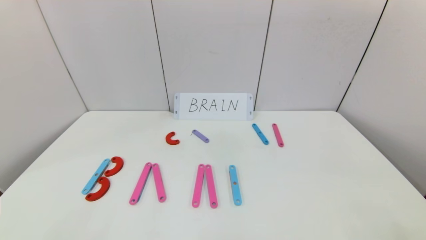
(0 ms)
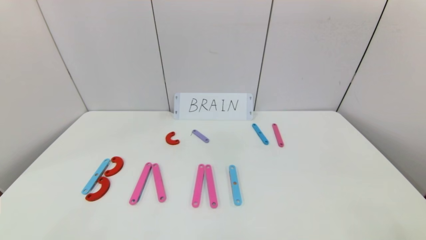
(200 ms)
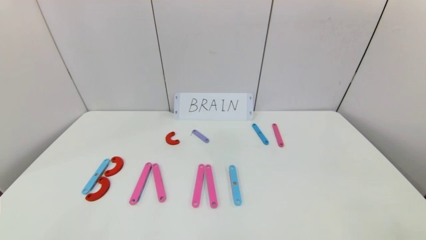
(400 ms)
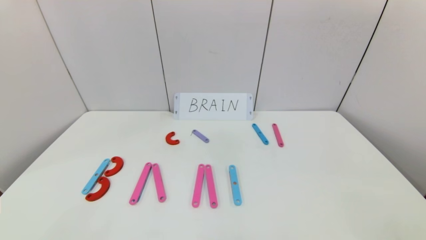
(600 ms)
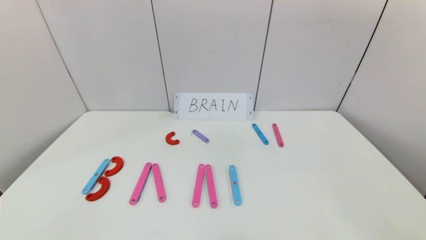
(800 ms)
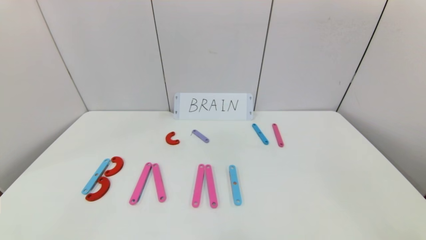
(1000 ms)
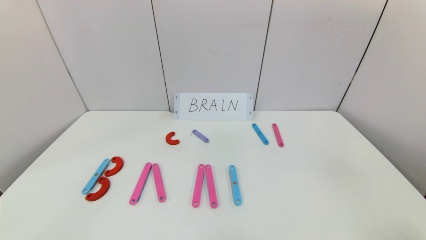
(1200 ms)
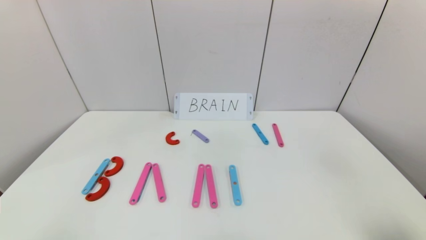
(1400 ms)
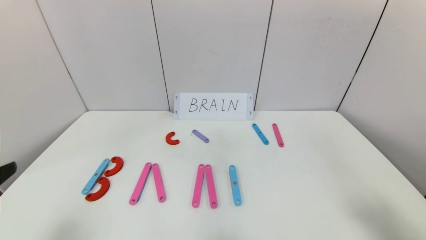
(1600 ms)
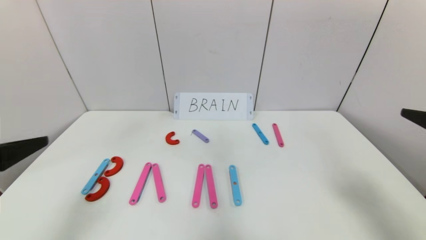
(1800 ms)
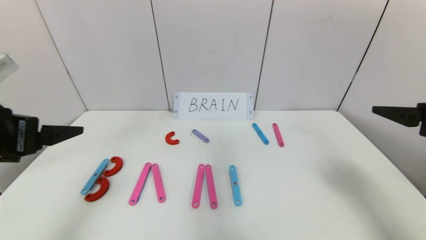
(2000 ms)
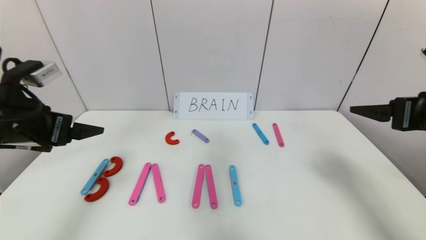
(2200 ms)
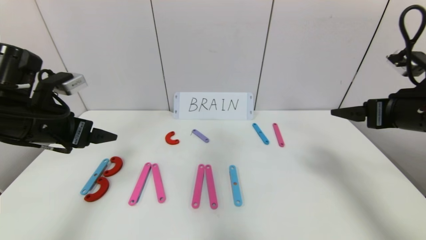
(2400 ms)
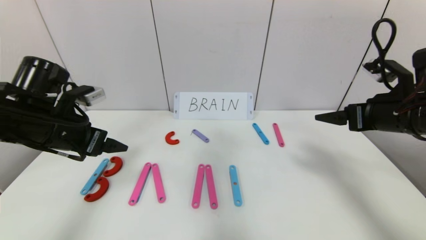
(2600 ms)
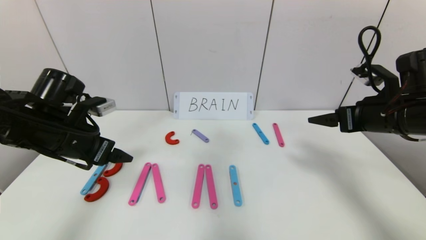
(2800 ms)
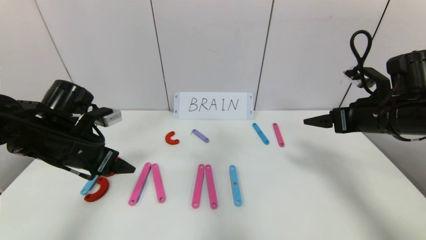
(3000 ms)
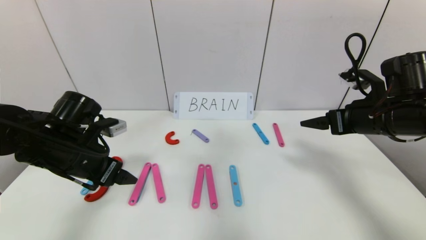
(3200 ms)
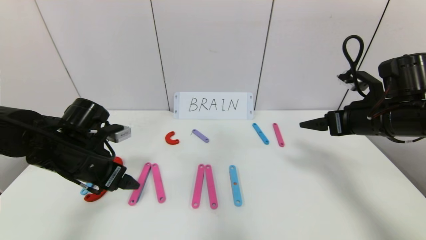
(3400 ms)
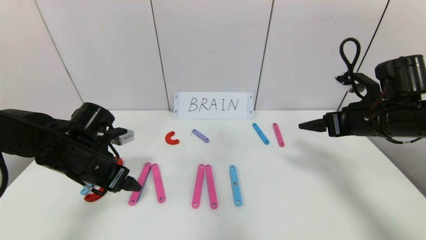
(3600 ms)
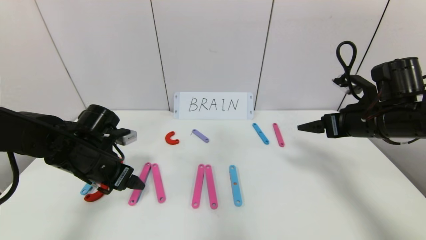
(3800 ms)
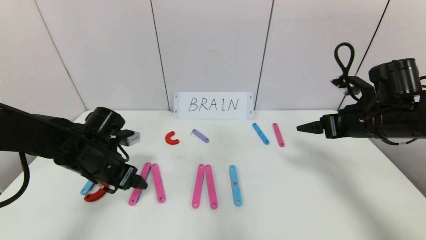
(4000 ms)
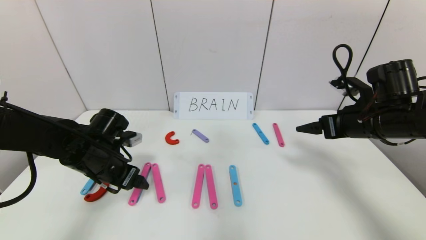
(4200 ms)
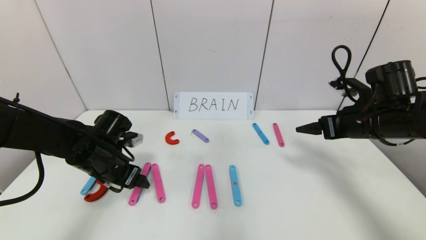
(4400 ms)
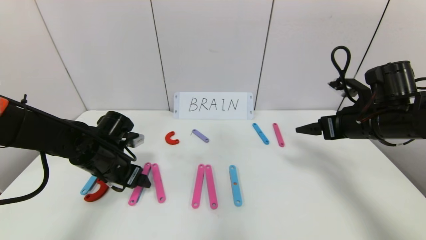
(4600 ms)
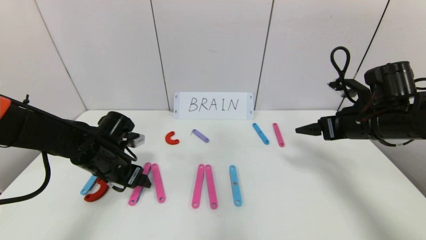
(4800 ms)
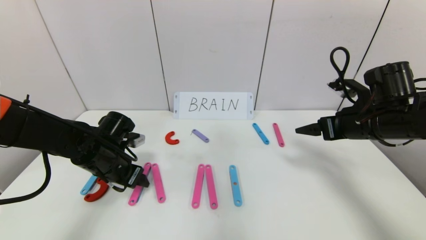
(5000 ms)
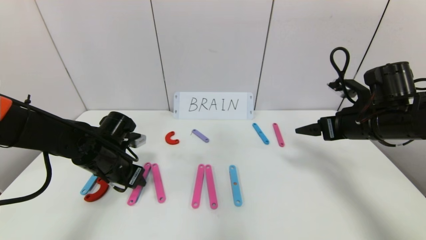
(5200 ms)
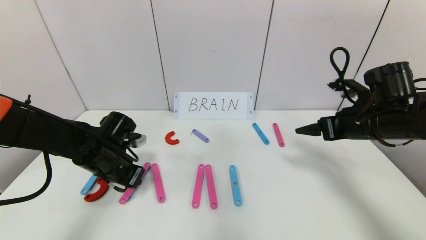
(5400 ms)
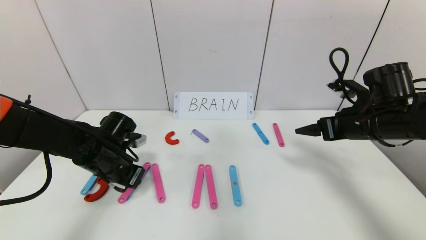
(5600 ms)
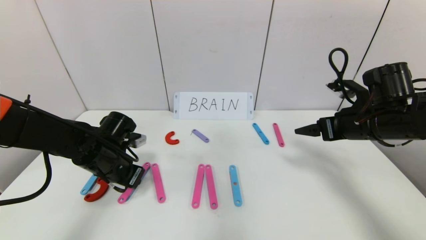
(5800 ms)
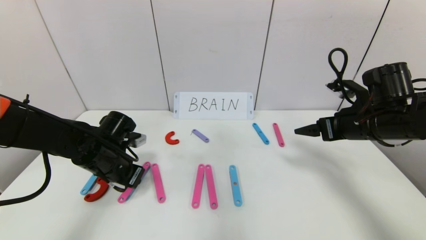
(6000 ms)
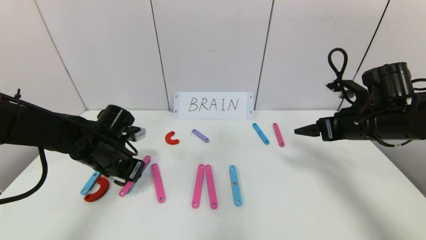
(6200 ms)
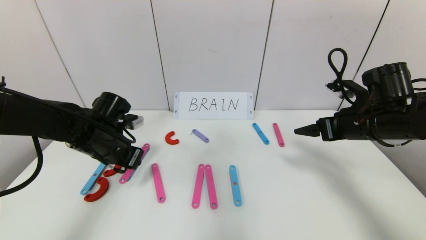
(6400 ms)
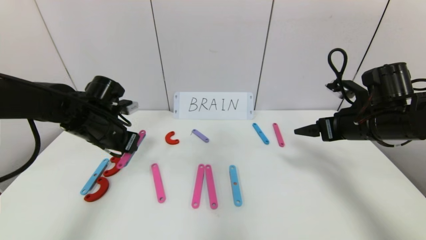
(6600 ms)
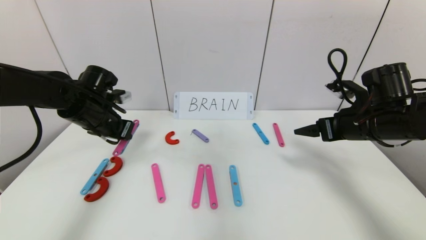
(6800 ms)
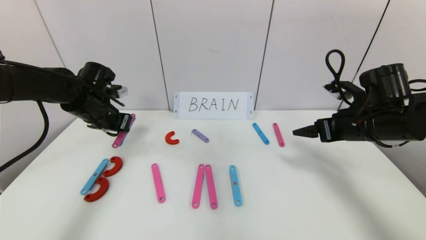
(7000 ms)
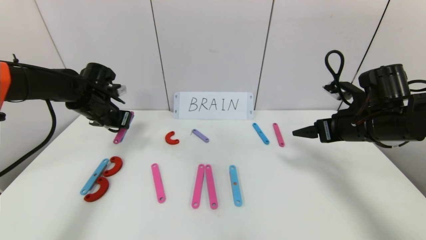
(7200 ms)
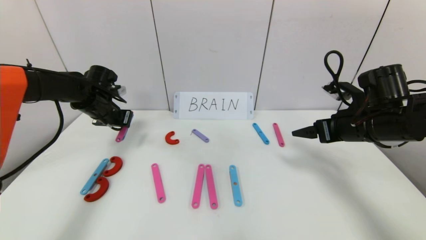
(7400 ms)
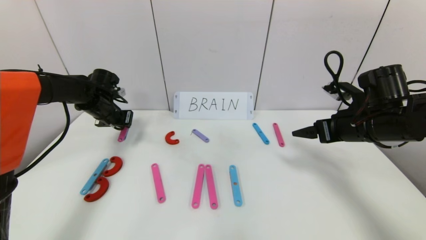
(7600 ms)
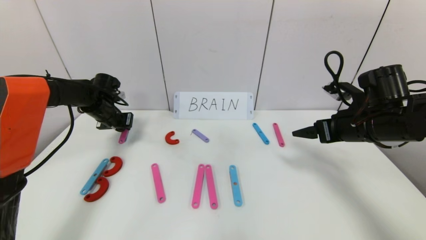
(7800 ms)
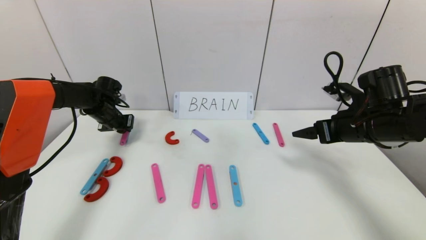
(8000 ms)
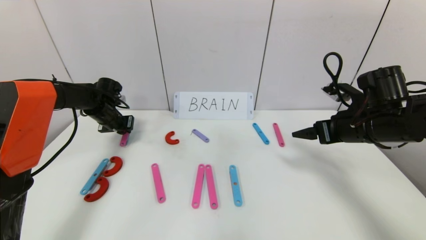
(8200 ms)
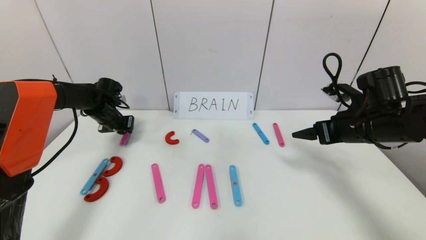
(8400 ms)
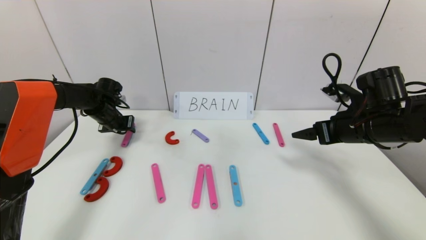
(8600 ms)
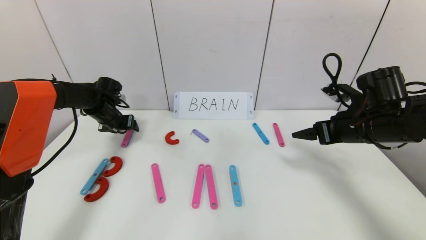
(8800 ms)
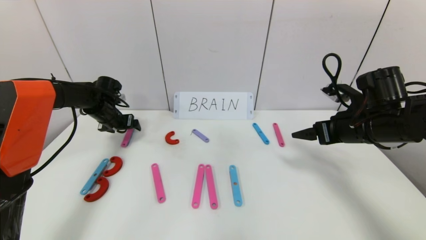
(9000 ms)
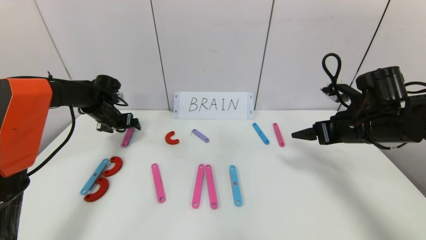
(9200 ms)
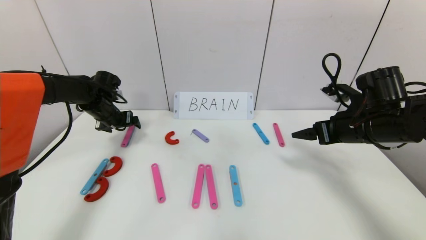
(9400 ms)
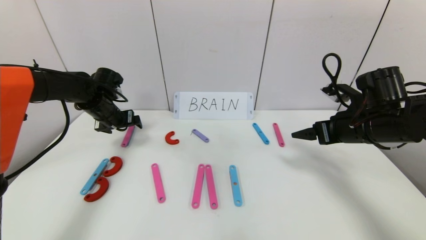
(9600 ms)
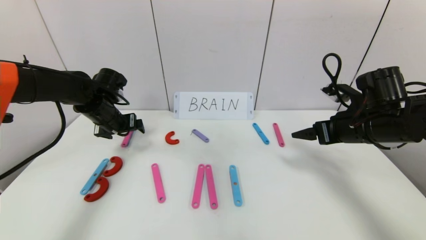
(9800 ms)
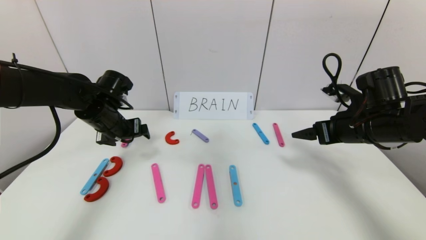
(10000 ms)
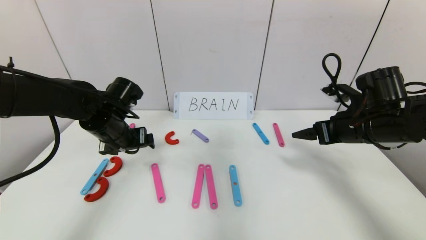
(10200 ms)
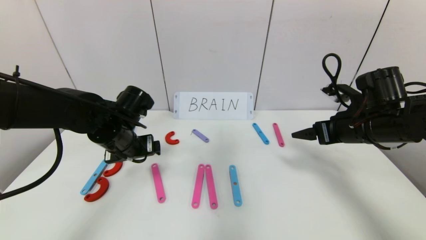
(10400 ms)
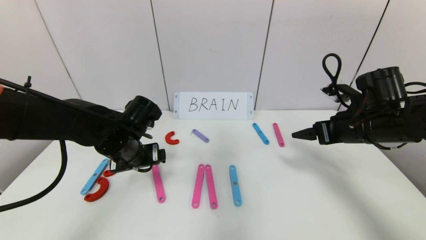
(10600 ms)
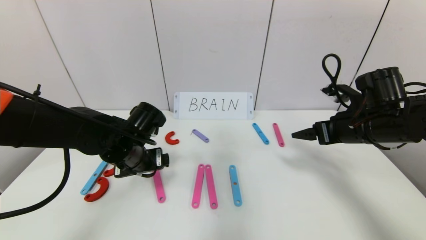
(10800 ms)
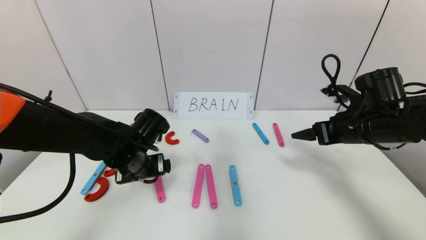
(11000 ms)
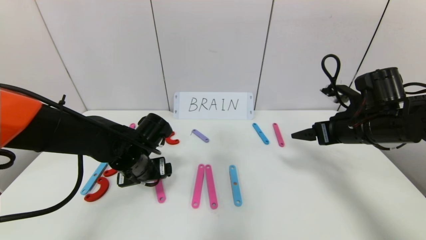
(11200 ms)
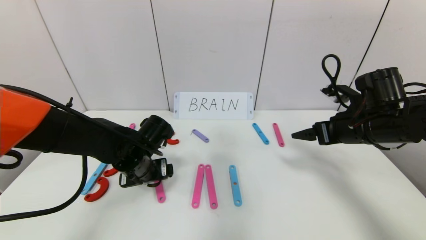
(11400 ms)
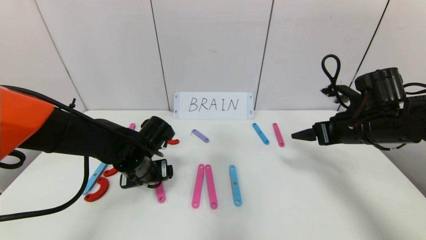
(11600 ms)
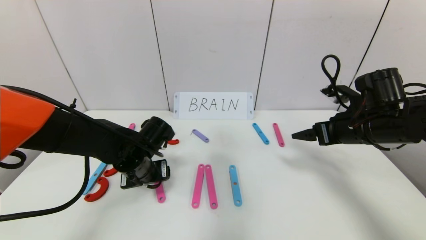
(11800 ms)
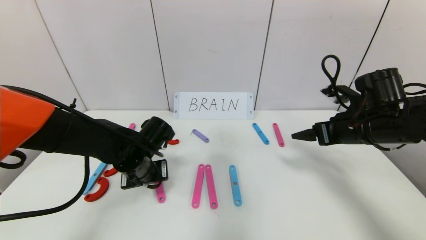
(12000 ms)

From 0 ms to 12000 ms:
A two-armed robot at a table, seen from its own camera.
Task of the whole recording: rearrange the word baai as brain.
From 0 ms to 1600 ms: The right gripper moves upward and forward, about 20 cm.
From 1600 ms to 3000 ms: Both grippers move forward, roughly 20 cm.
From 3000 ms to 4400 ms: The left gripper goes roughly 5 cm downward.
From 4400 ms to 6000 ms: The left gripper closes.
From 6000 ms to 7600 ms: The left gripper travels forward and to the left by roughly 15 cm.
From 7600 ms to 9000 ms: The left gripper opens its fingers.
From 9000 ms to 10400 ms: The left gripper moves backward and to the right, about 20 cm.
From 10400 ms to 12000 ms: The left gripper heads downward, covering some 5 cm, and closes.

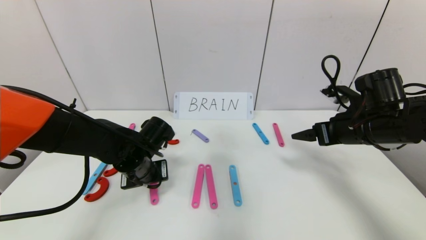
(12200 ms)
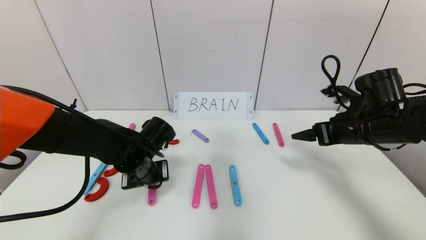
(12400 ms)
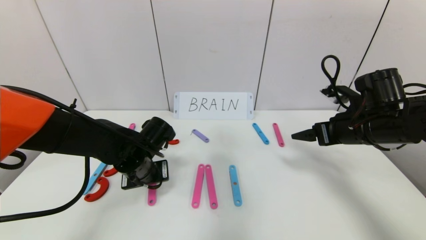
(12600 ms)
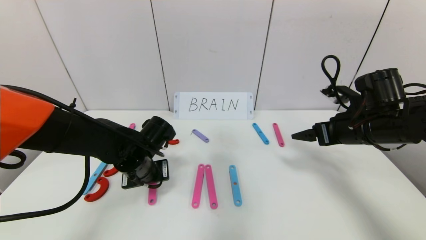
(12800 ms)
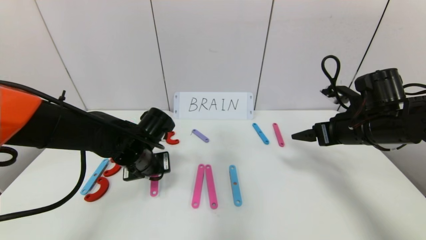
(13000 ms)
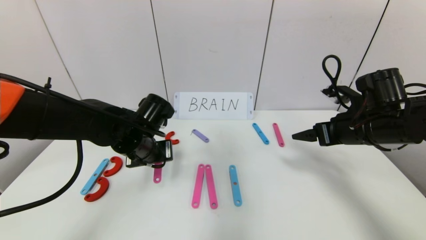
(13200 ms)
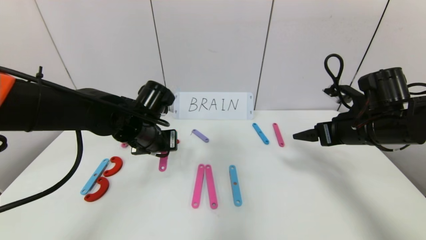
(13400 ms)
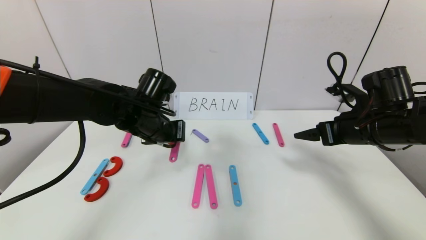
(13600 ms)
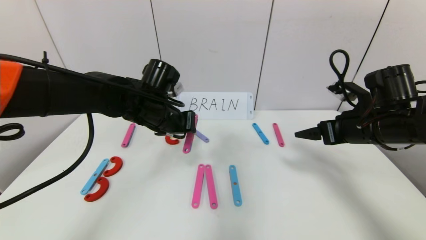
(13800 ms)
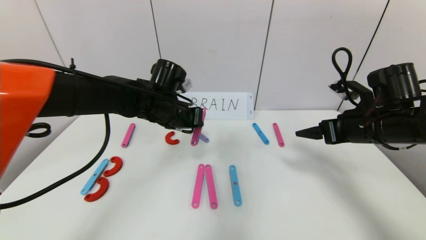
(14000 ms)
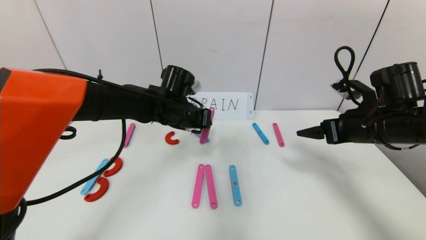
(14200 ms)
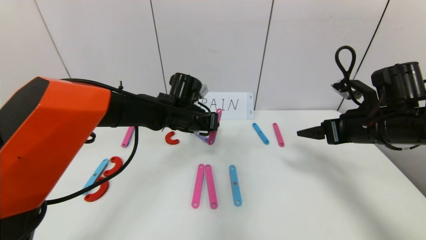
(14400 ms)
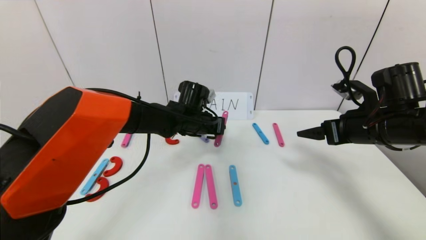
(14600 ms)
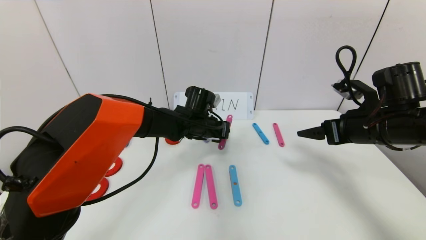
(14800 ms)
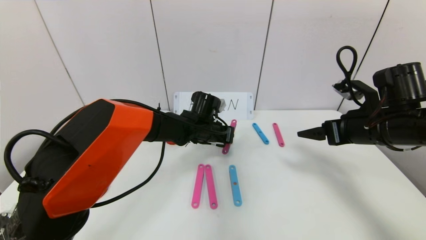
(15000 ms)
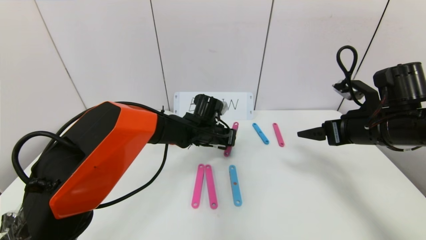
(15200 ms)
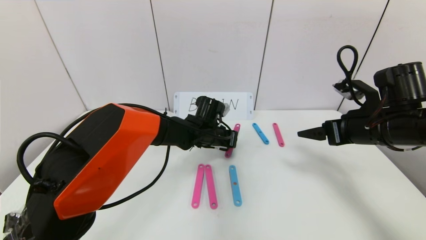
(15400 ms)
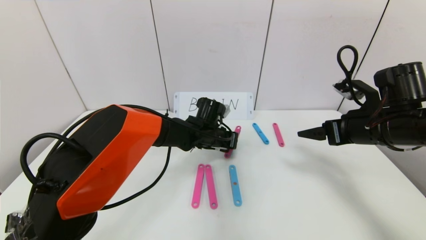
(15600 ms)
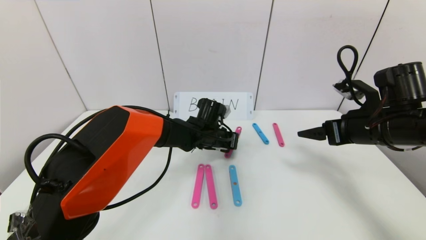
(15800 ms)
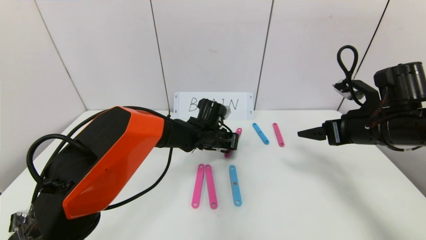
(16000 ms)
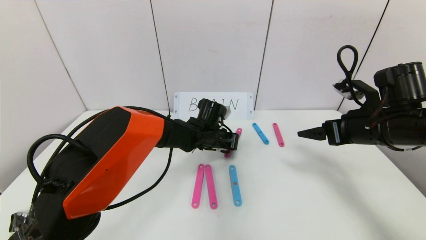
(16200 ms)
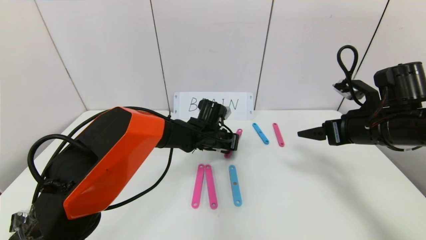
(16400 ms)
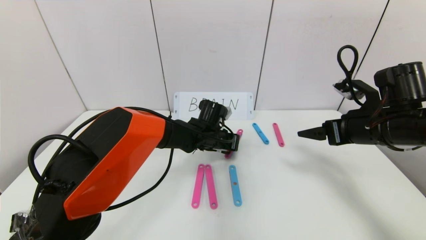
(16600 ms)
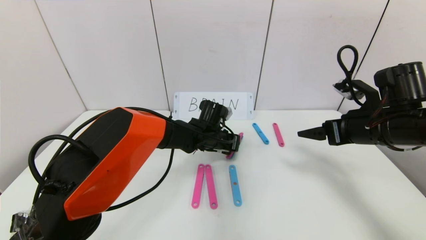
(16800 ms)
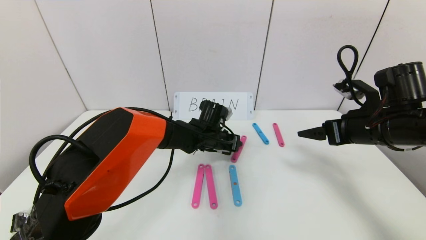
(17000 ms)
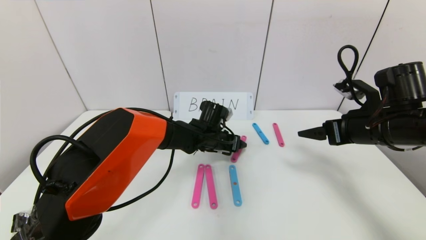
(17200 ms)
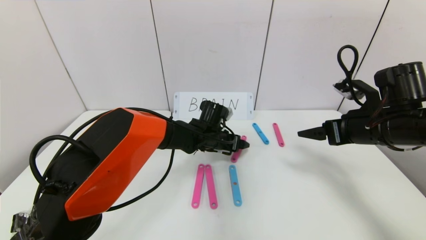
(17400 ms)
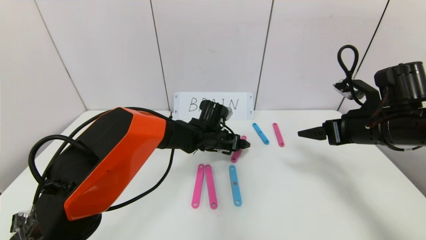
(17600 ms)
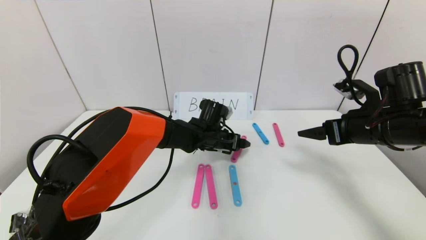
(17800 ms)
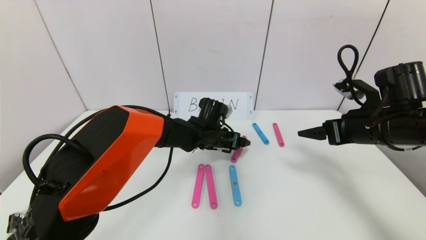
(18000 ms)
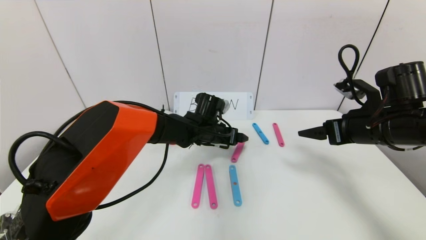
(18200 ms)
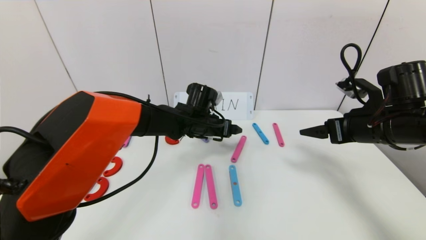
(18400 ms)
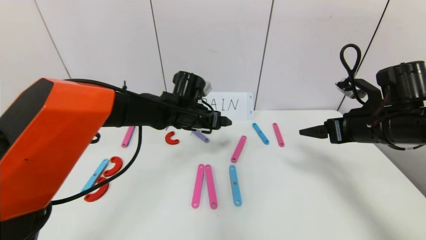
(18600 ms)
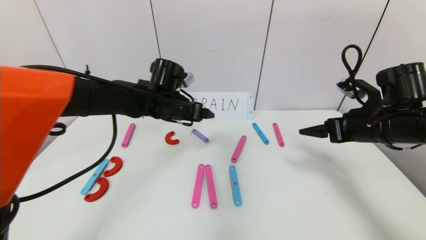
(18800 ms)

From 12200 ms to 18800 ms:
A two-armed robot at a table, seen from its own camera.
Task of the whole recording: rearrange the word baai as brain.
Step, from 12200 ms to 16800 ms: Disassemble the second character A.
From 12200 ms to 13800 ms: The left gripper travels upward by approximately 10 cm.
From 13800 ms to 15400 ms: The left gripper goes about 15 cm to the right, downward and forward.
From 15400 ms to 17200 ms: The left gripper opens up.
From 17200 ms to 18800 ms: The left gripper travels to the left and upward by about 15 cm.
